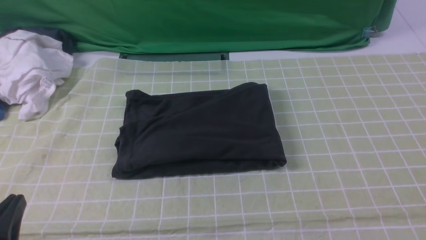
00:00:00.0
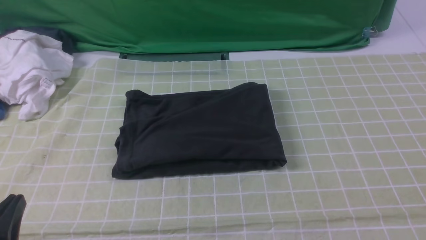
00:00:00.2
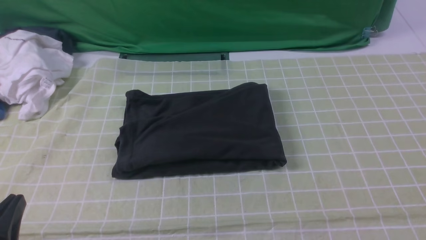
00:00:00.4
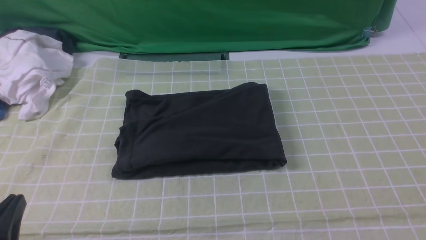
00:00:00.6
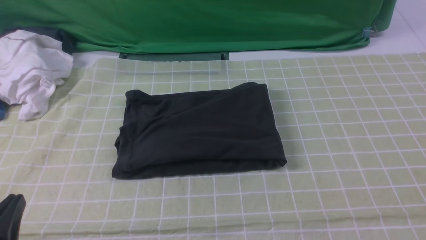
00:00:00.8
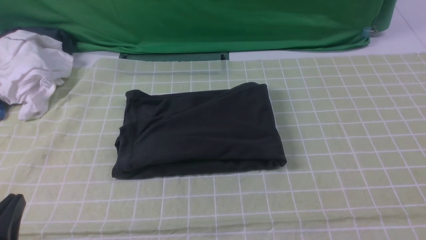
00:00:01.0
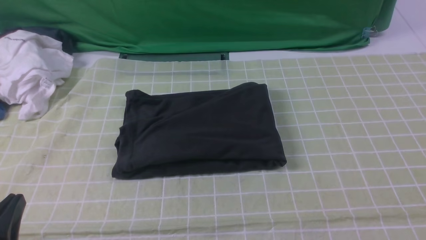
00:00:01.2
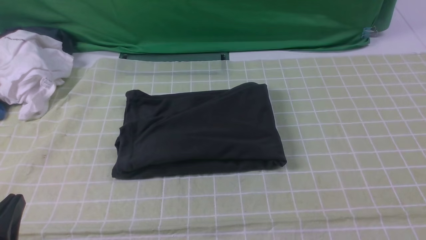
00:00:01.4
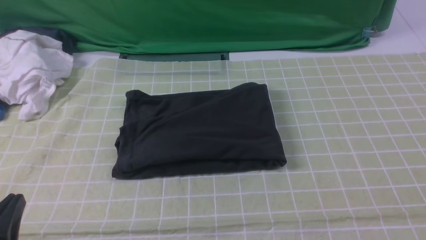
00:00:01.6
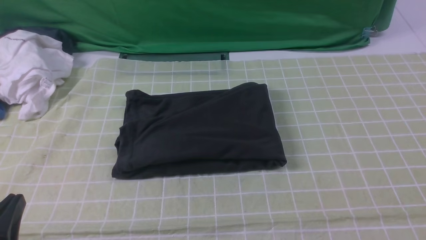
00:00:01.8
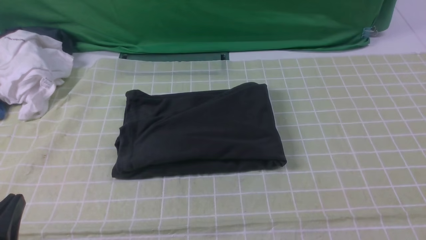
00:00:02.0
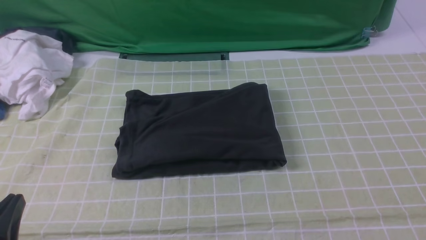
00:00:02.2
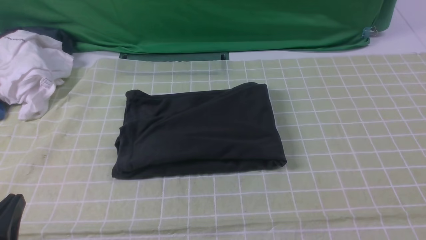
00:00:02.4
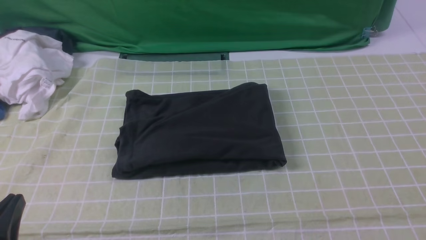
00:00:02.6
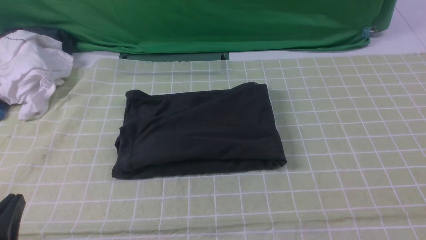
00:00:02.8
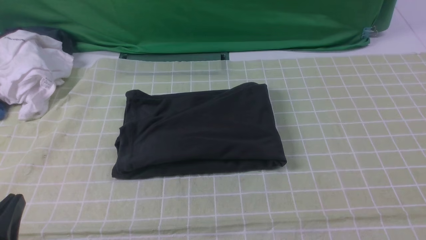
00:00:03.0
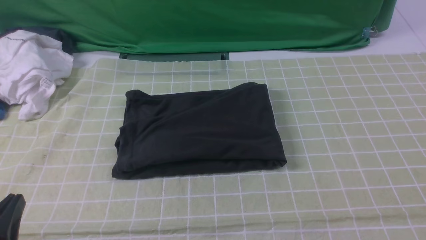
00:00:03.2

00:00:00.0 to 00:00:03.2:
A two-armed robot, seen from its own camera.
00:00:01.6 to 00:00:03.2: Both grippers stay put.
